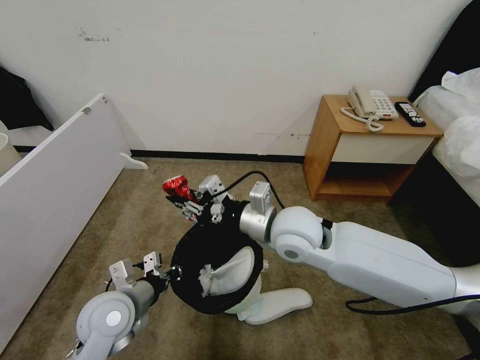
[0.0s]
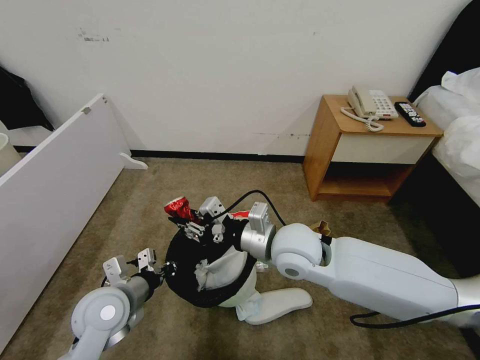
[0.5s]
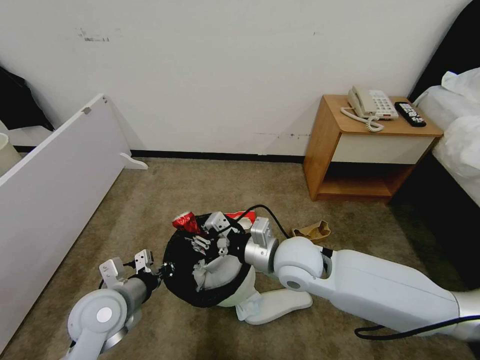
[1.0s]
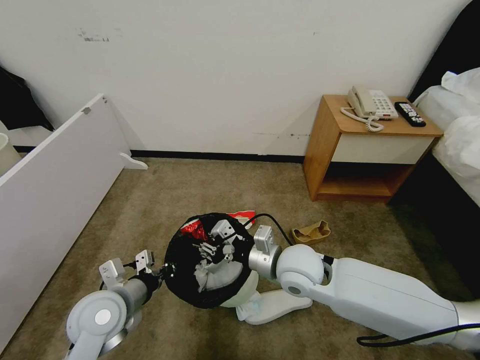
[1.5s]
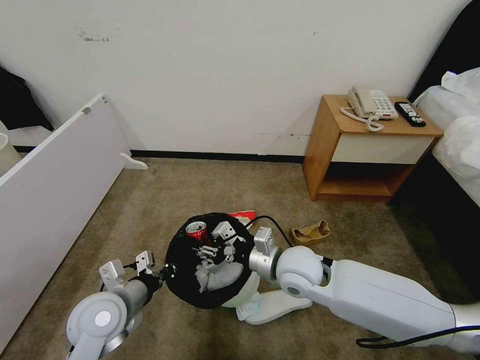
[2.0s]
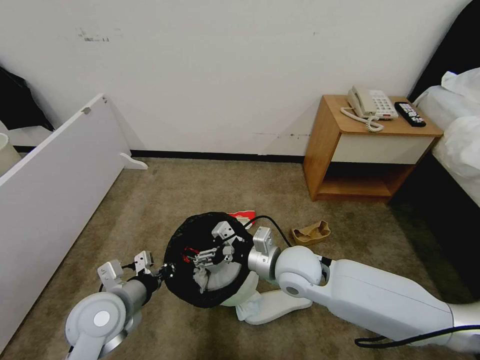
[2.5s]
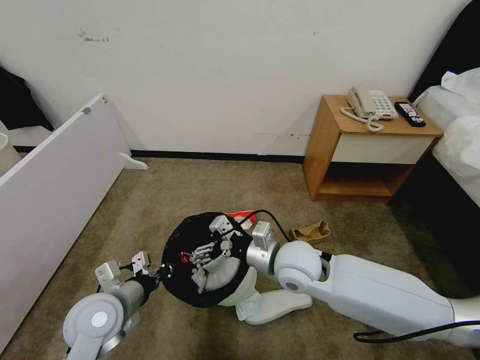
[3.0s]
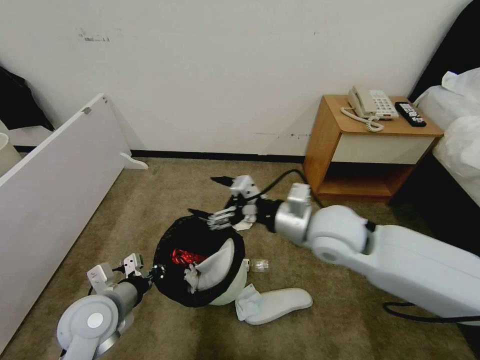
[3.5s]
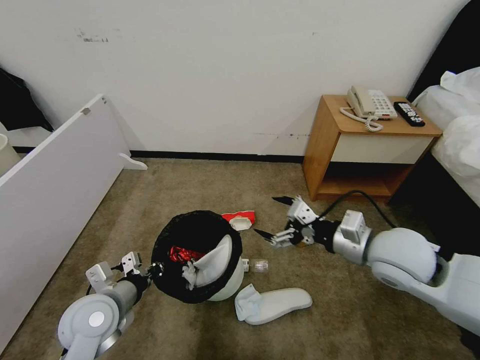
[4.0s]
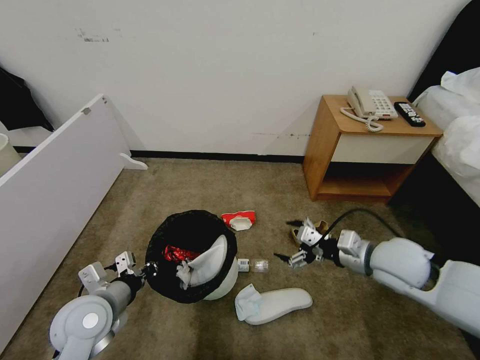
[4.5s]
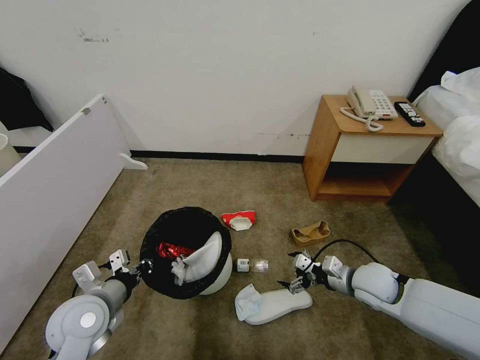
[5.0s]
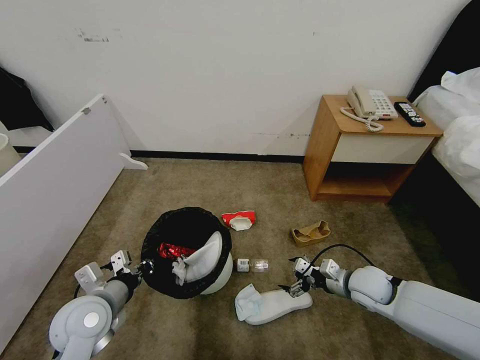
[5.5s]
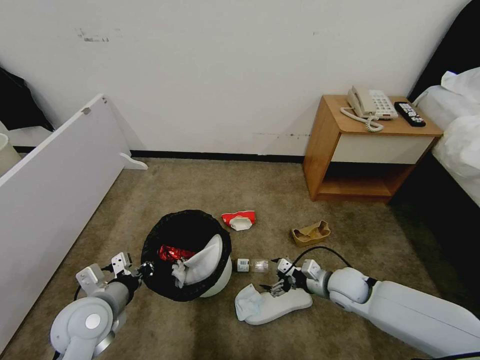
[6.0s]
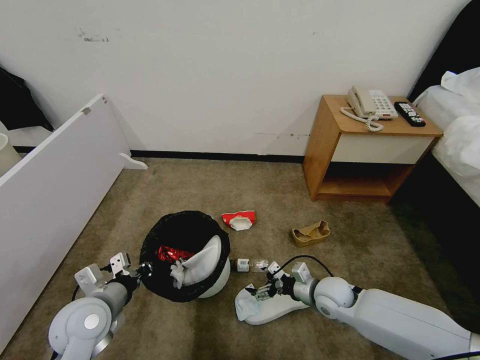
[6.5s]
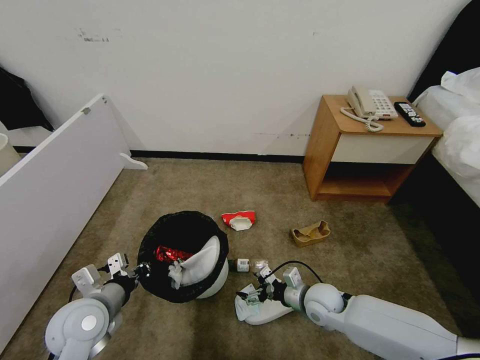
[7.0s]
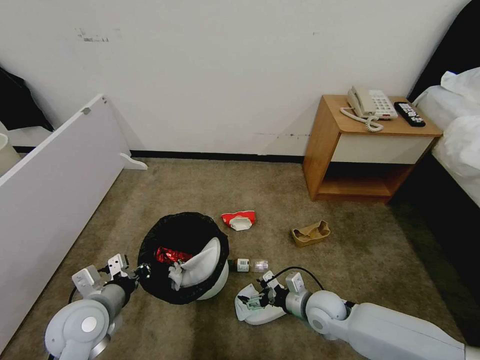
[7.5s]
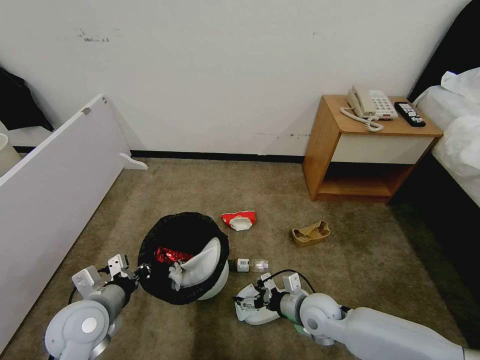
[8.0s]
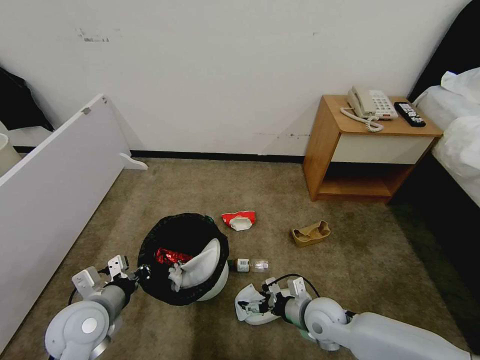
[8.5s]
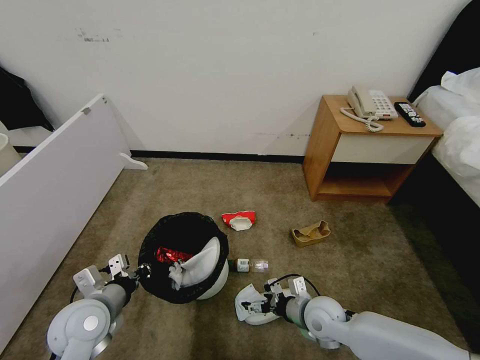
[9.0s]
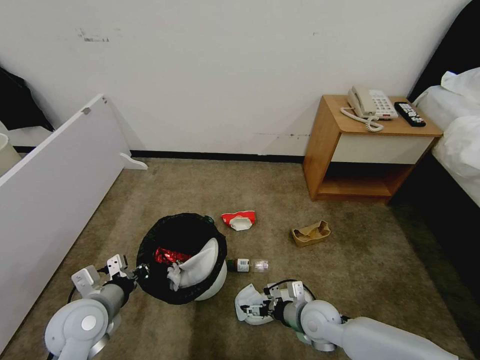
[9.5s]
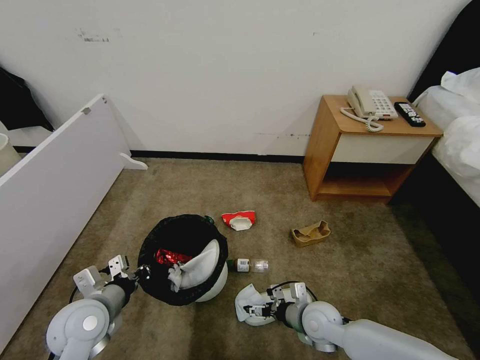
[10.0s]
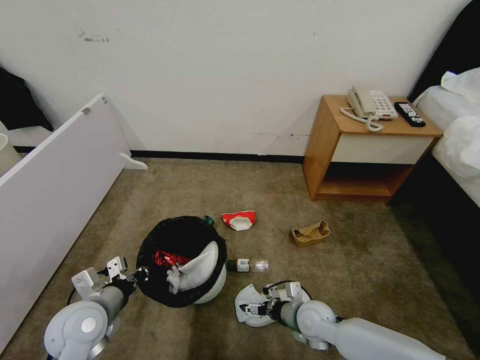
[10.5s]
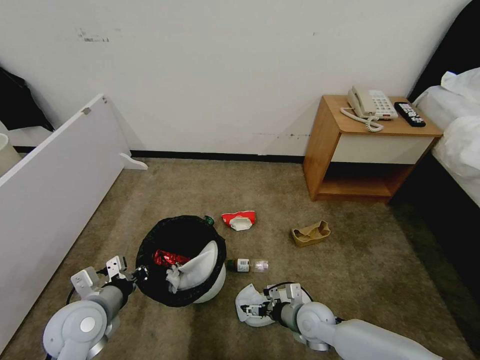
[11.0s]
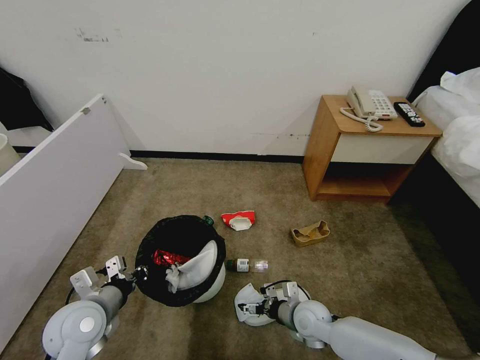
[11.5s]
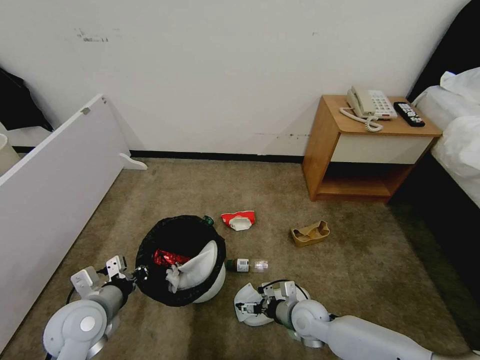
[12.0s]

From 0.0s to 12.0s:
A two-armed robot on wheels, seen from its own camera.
Task of the whole recording: Pick up the trash bin and place the garbage on the floor into it.
From 0.0s to 2.0s: The right gripper goes approximately 10 cm downward.
From 2.0s to 4.0s: The right gripper travels to the right and upward by approximately 20 cm, and opens up.
From 4.0s to 6.0s: The right gripper heads downward, covering some 25 cm.
From 6.0s to 8.0s: The right gripper shifts about 10 cm to the left and backward.
From 8.0s to 12.0s: The grippers make only small movements.

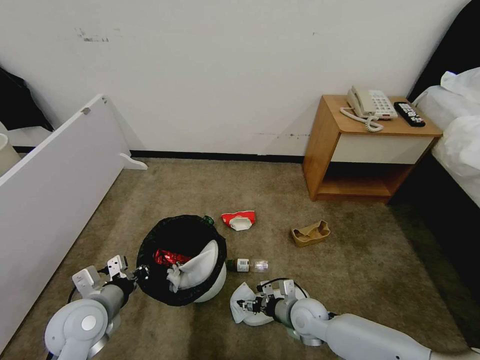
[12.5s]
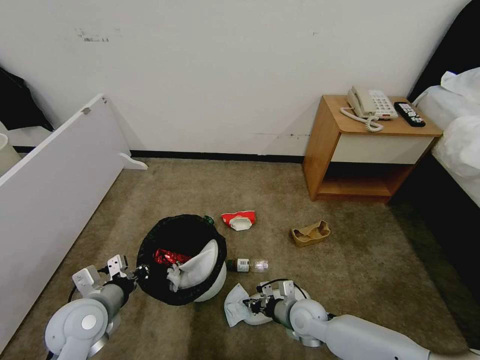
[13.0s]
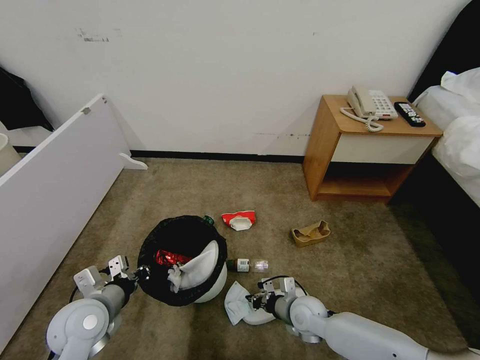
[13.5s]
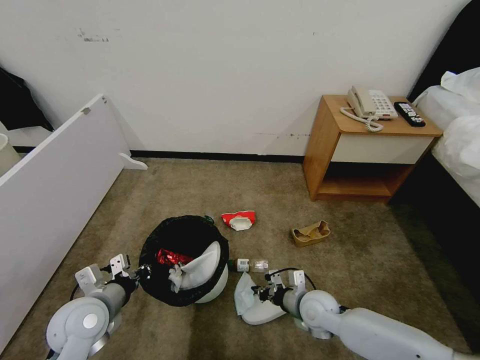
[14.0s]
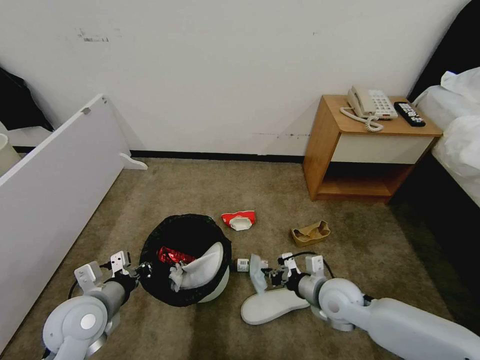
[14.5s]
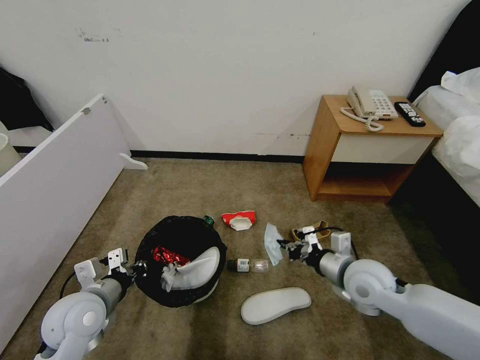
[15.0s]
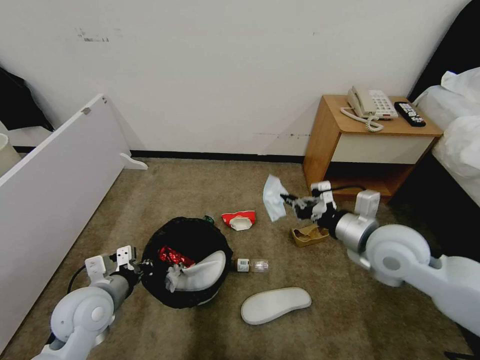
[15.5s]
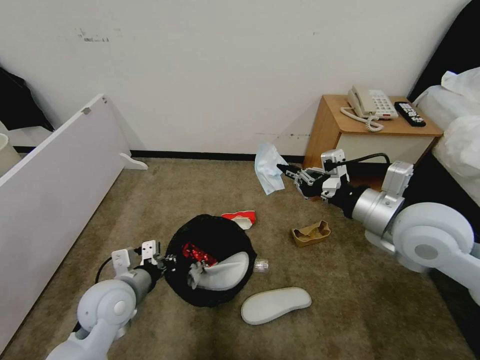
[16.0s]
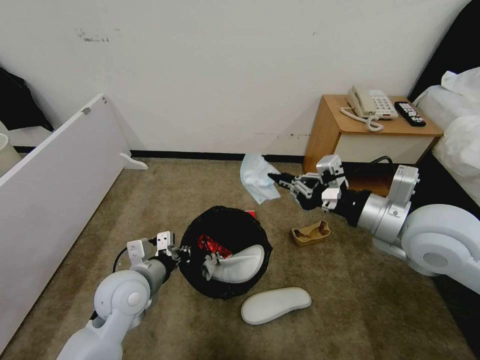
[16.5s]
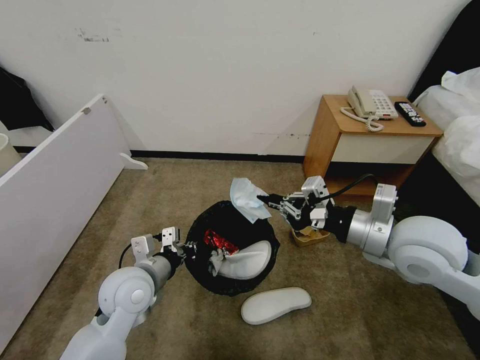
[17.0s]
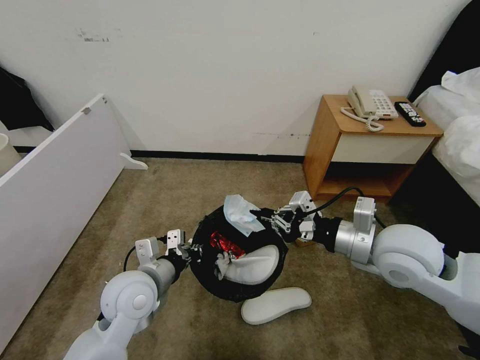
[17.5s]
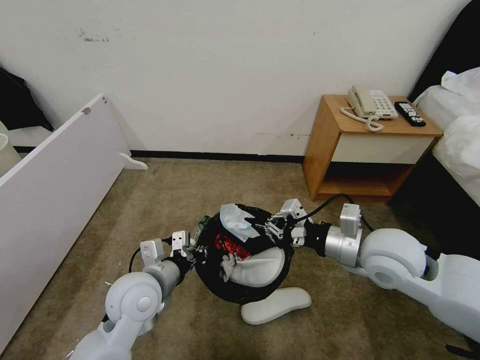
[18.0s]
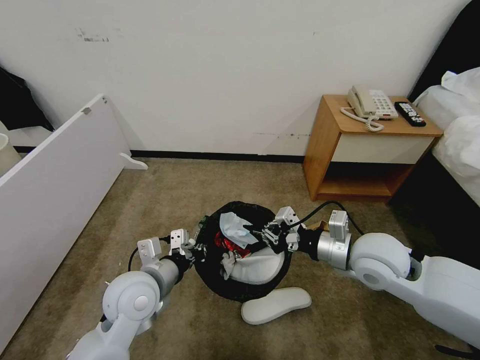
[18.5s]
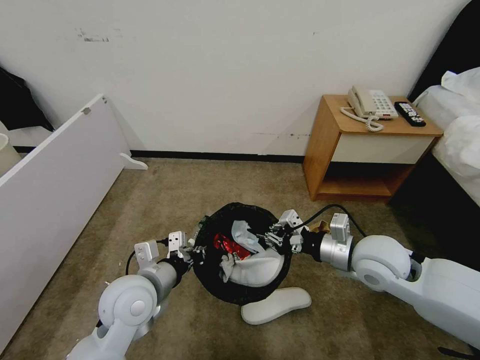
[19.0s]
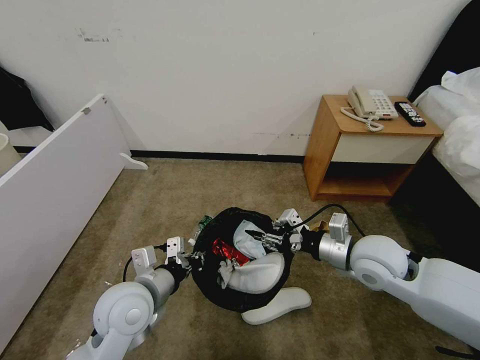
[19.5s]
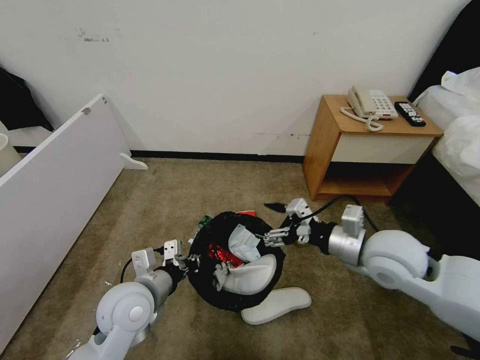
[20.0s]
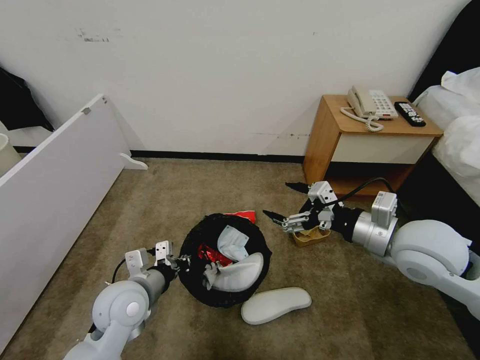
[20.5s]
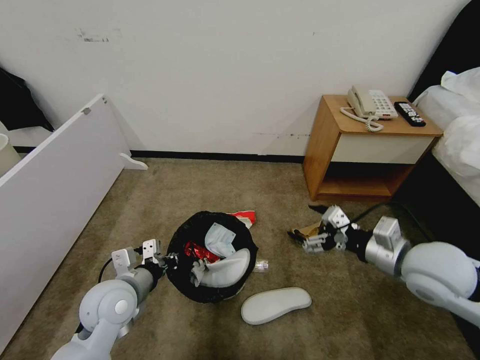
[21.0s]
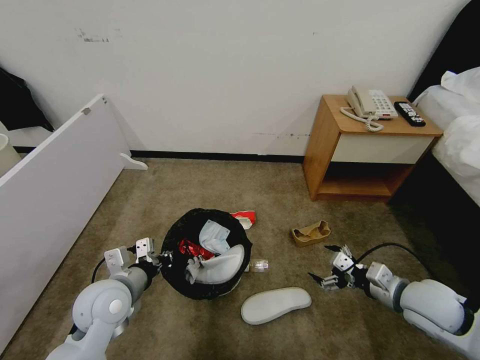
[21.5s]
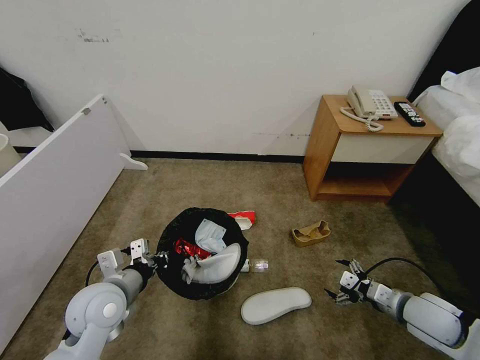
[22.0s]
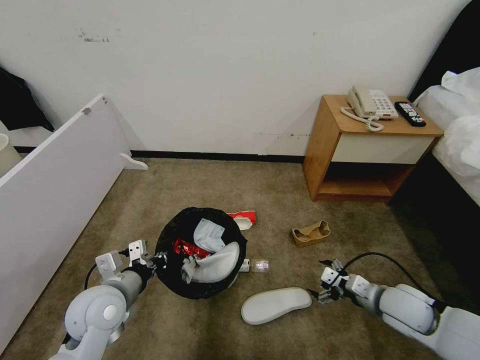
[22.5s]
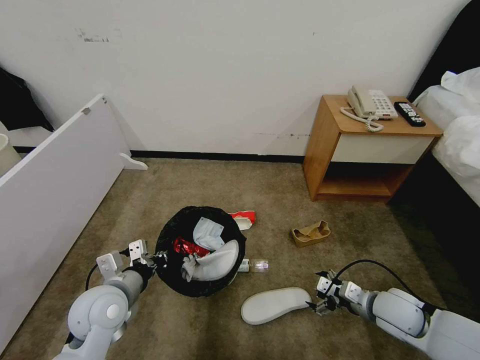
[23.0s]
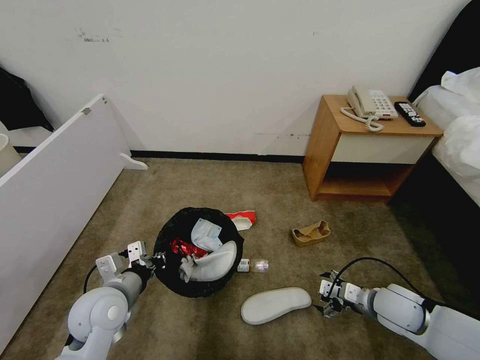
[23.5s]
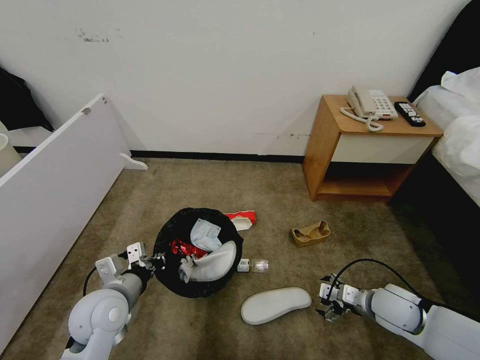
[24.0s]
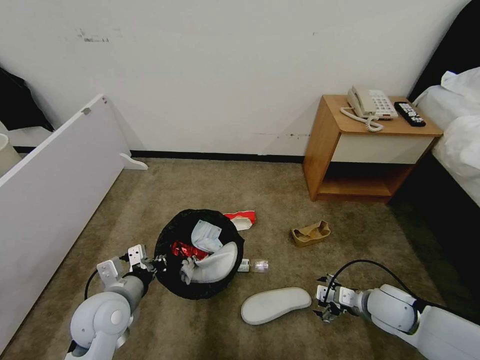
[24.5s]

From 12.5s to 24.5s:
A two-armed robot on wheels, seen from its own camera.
Task of the whole recording: Pick up the trash bin and place the garbage on the floor into it.
From 12.5s to 14.5s: The right gripper heads upward and to the right, covering some 10 cm, and closes up.
From 14.5s to 16.5s: The left gripper shifts about 10 cm to the right. The right gripper is displaced upward by approximately 25 cm.
From 16.5s to 18.5s: The right gripper goes approximately 10 cm downward.
From 18.5s to 20.5s: The right gripper is displaced upward by some 5 cm, and opens up.
From 20.5s to 22.5s: The right gripper heads downward, covering roughly 20 cm.
From 22.5s to 24.5s: There are only small adjustments of the grippers.

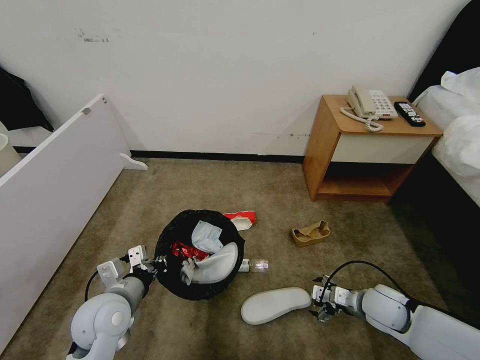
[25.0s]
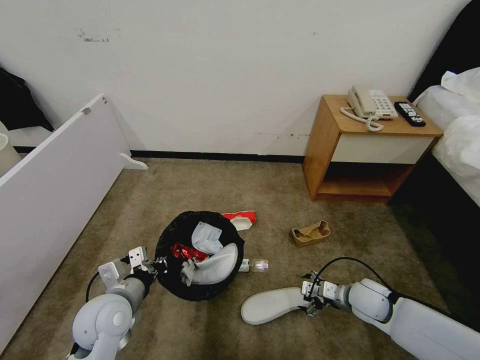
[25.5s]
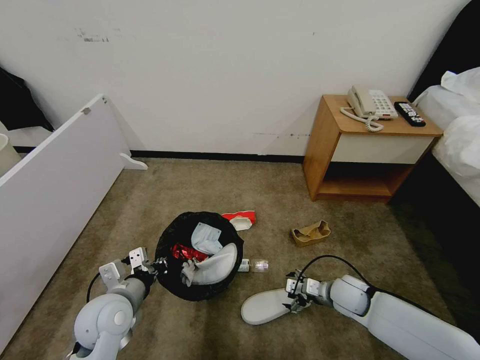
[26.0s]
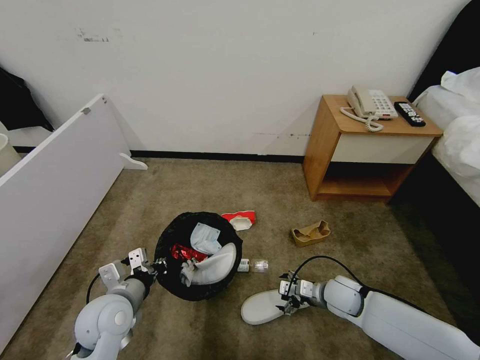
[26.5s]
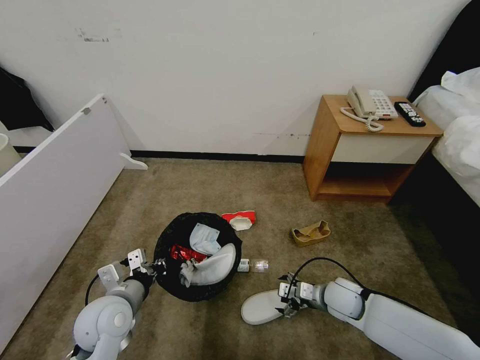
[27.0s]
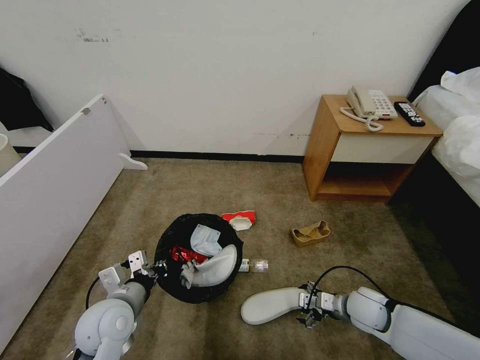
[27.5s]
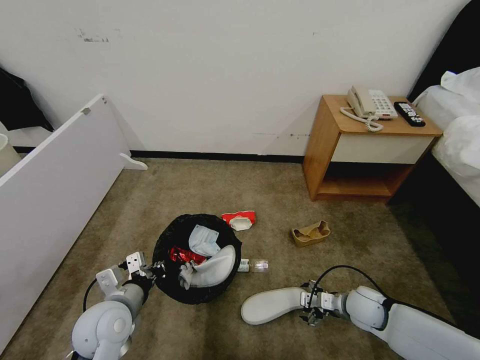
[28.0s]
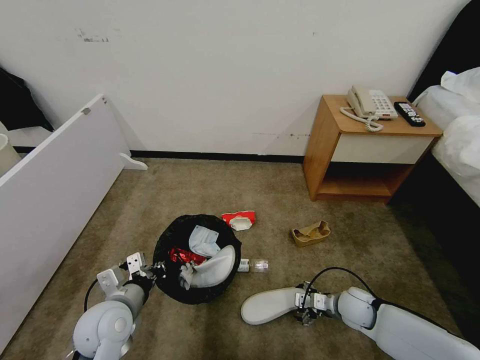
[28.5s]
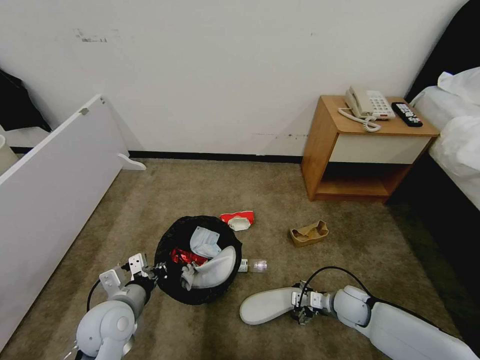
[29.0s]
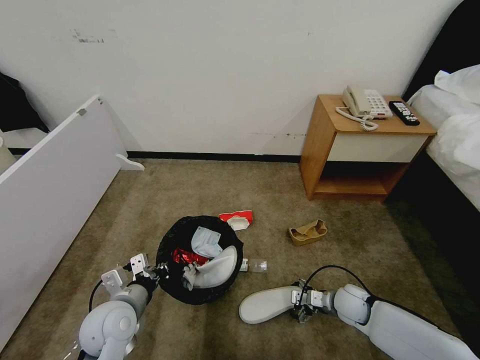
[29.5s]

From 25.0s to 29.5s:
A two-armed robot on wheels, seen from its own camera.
Task of the whole recording: Pick up the trash bin and place the garbage on the floor into it.
From 25.0s to 27.0s: The right gripper heads to the left, covering some 5 cm.
From 27.0s to 29.5s: The right gripper shifts by roughly 5 cm.
